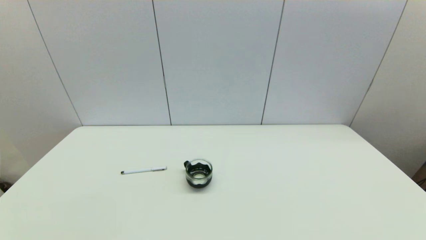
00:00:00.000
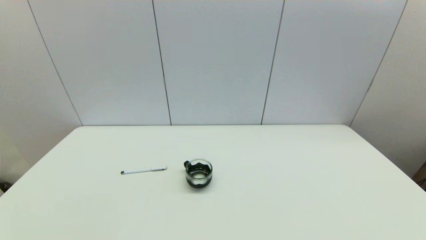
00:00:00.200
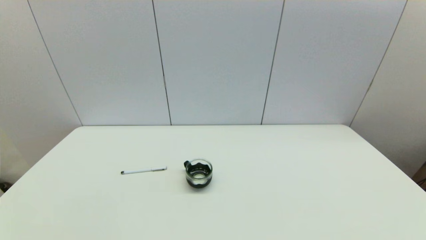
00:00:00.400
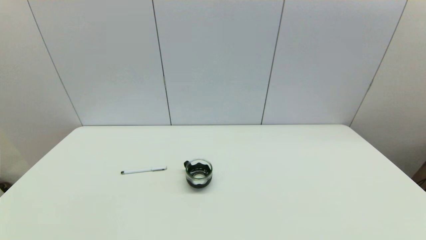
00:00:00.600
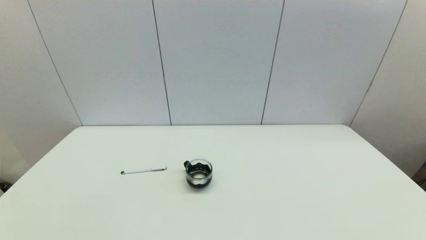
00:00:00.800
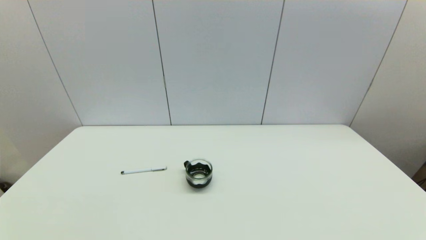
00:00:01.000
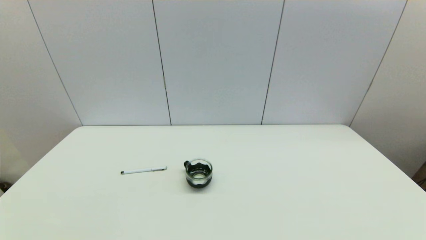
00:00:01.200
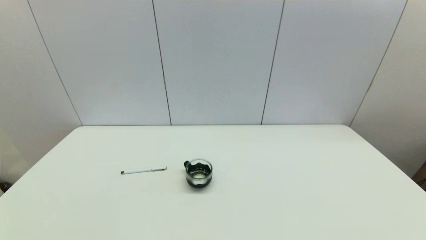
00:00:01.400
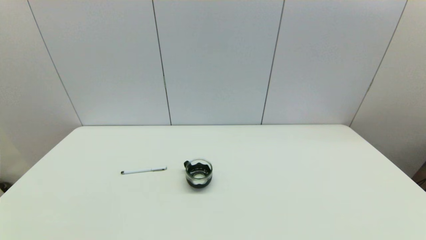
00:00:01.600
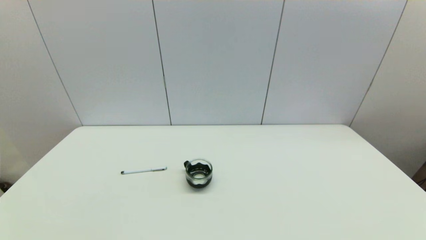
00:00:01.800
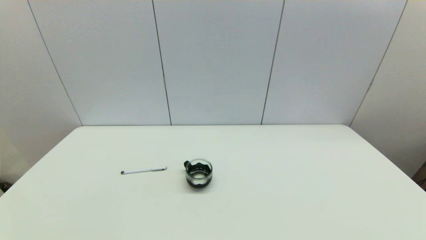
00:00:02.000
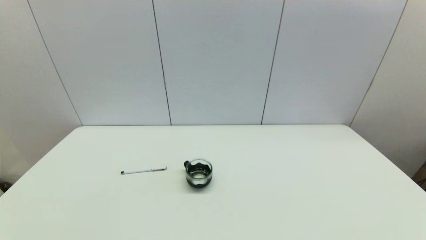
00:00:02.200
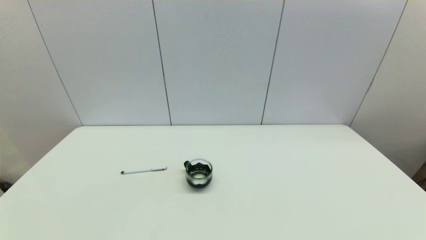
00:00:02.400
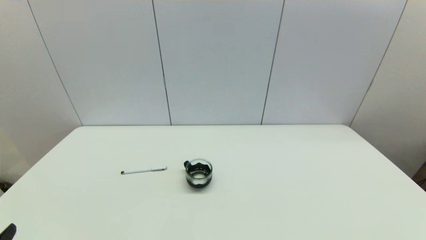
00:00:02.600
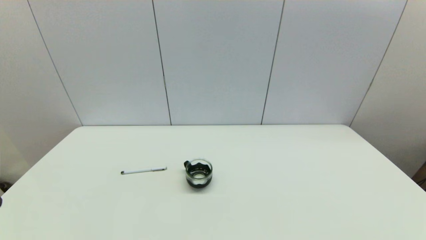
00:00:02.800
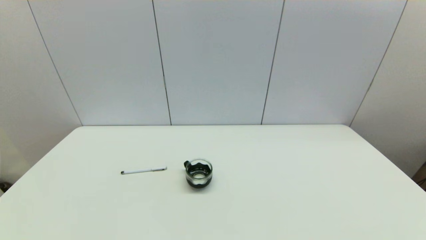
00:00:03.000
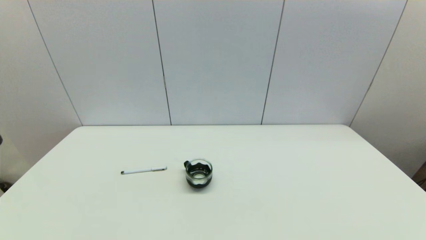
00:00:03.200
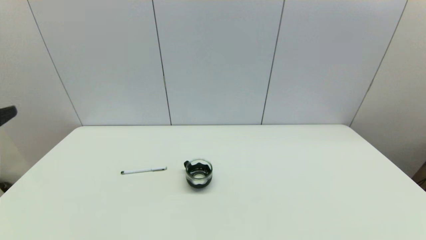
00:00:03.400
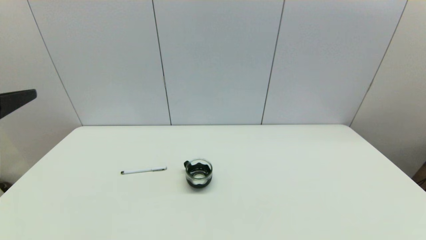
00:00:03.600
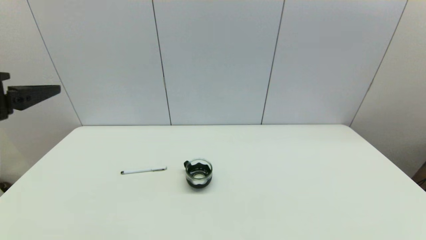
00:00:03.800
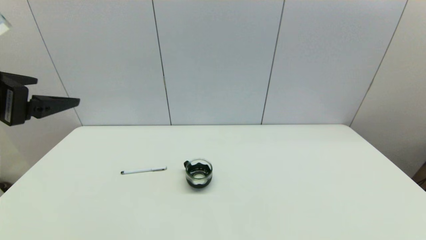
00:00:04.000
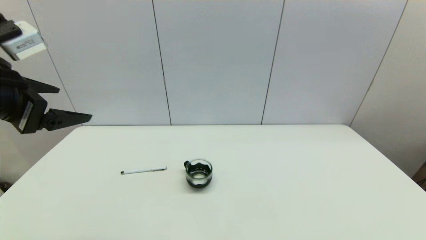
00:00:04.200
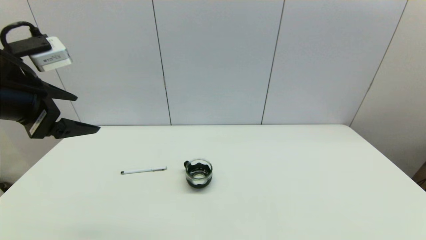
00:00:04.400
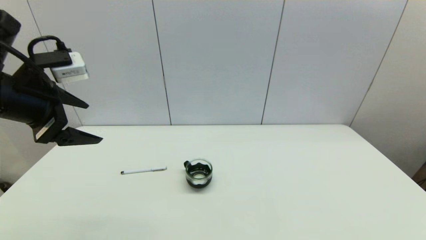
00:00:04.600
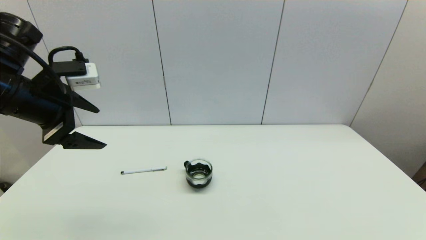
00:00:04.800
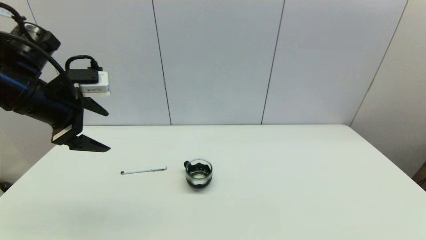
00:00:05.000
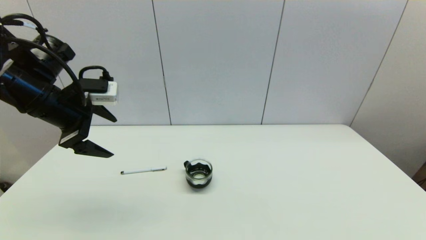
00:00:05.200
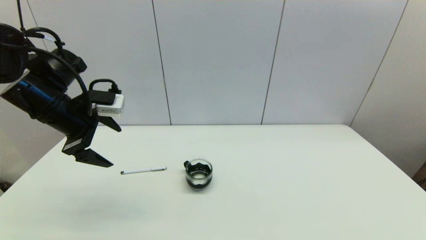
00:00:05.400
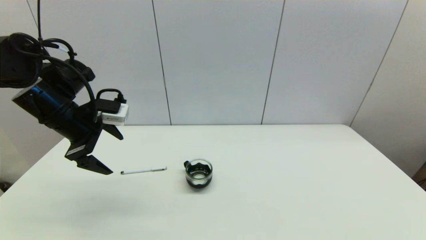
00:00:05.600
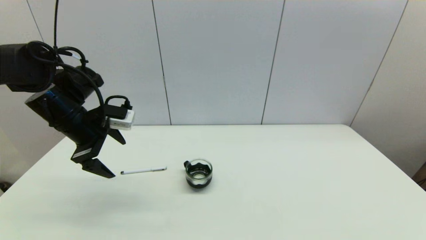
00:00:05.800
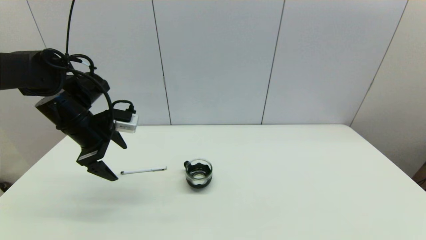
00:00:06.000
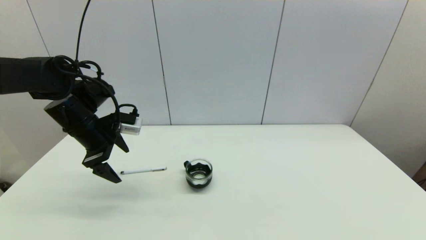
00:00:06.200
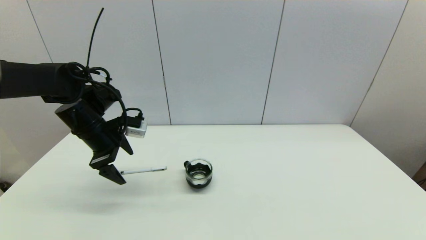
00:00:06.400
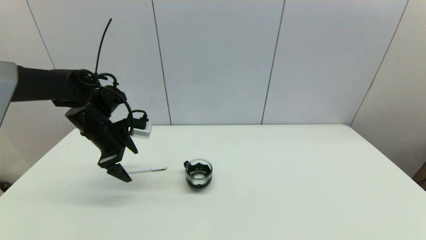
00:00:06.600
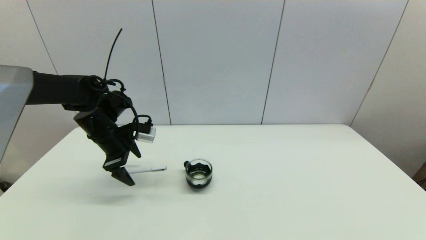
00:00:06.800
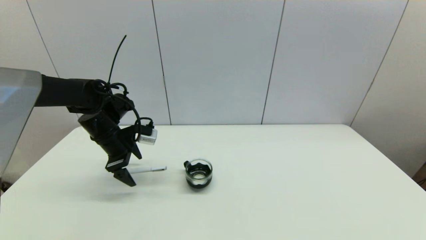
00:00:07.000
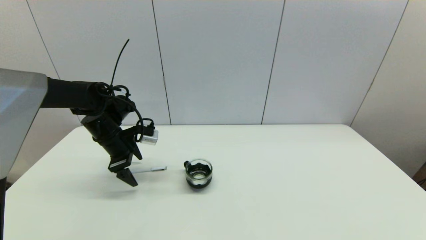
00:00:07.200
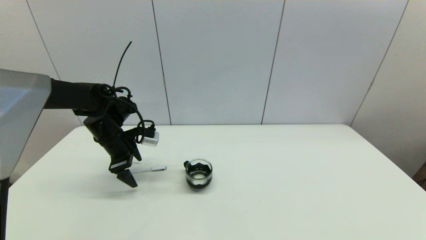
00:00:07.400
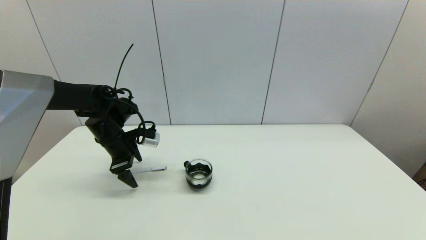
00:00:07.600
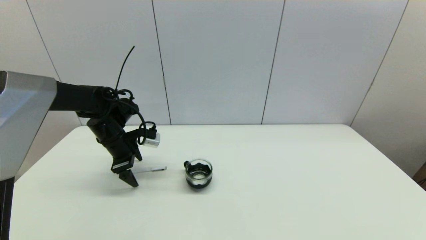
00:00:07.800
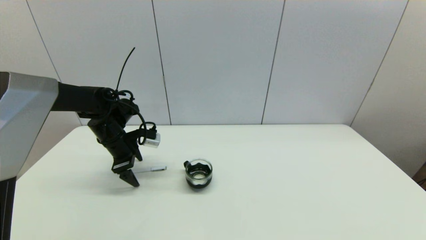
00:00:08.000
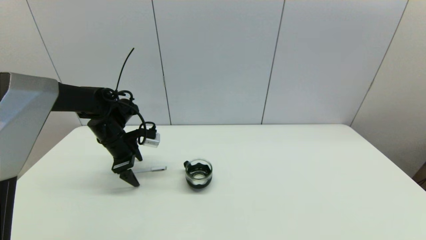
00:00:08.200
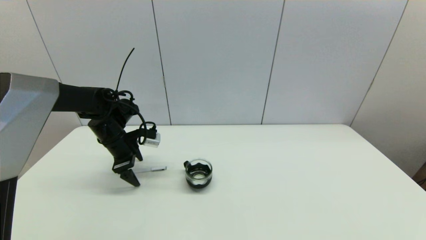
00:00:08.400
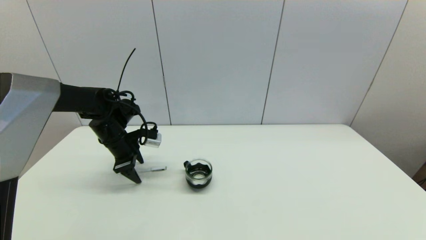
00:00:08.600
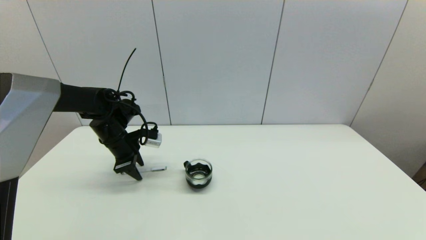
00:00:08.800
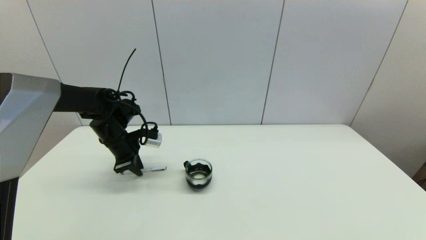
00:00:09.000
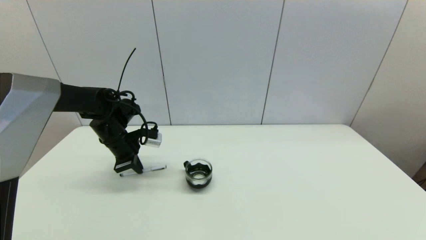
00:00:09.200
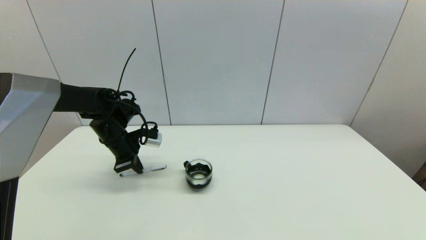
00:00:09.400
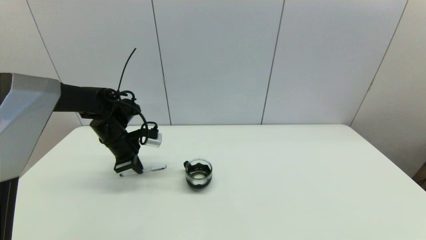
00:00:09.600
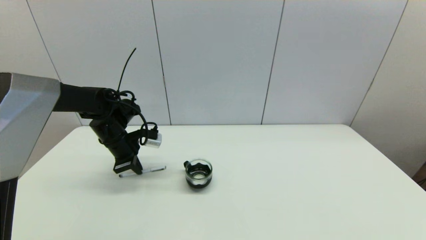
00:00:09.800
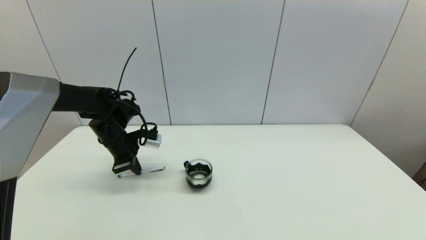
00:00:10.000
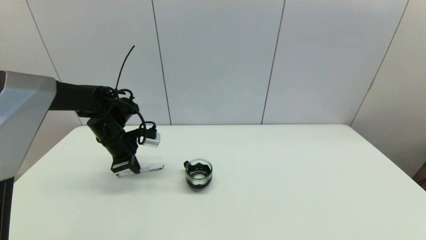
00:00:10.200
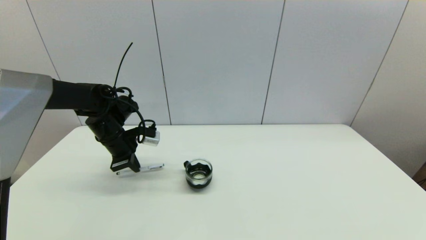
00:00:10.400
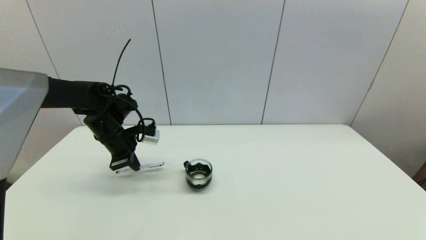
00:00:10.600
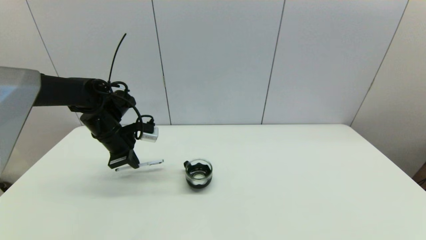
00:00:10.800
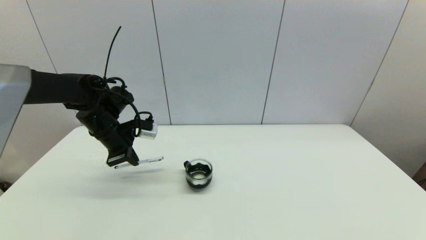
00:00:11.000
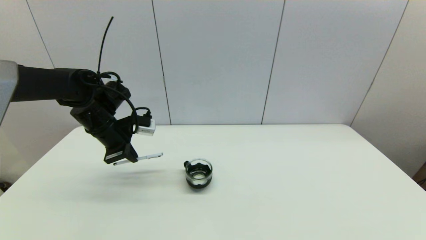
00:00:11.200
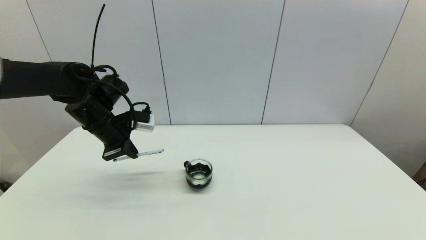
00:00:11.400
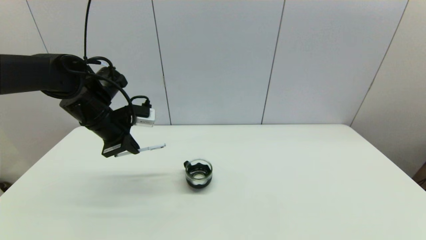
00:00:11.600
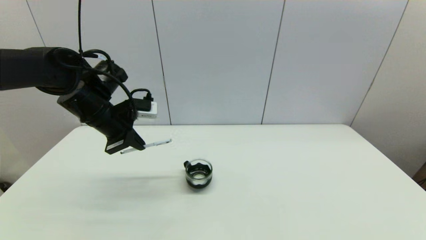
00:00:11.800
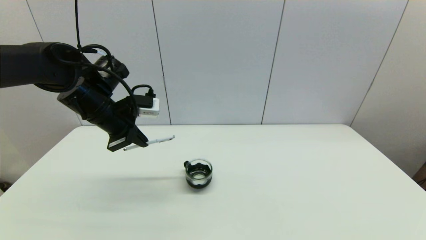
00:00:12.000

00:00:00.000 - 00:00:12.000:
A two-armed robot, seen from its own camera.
Task of the whole recording: put the pen in the designated position.
Step, 00:00:02.600 - 00:00:09.400: Grasp the sign pen with left gripper.
00:00:00.000 - 00:00:01.600: The two grippers keep their place.
00:00:03.000 - 00:00:04.400: The left gripper goes some 20 cm forward and upward.
00:00:04.400 - 00:00:06.000: The left gripper shifts about 15 cm forward and downward.
00:00:06.000 - 00:00:07.600: The left gripper is displaced downward and forward by approximately 10 cm.
00:00:07.600 - 00:00:09.000: The left gripper closes up.
00:00:09.000 - 00:00:10.400: The grippers stay close to where they were, moving slightly.
00:00:10.400 - 00:00:12.000: The left gripper travels upward by roughly 10 cm.

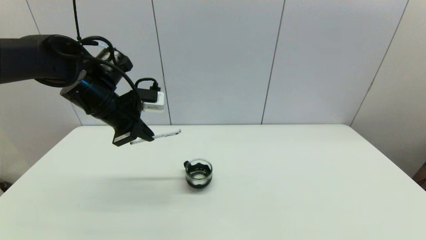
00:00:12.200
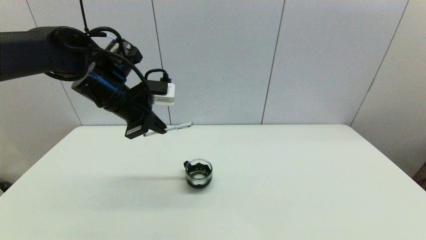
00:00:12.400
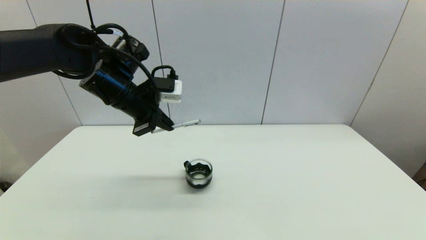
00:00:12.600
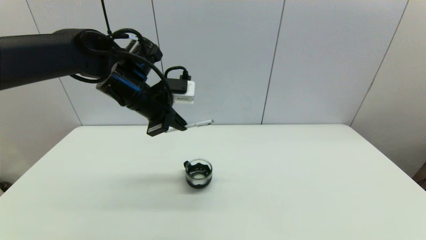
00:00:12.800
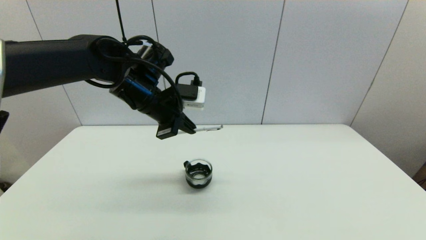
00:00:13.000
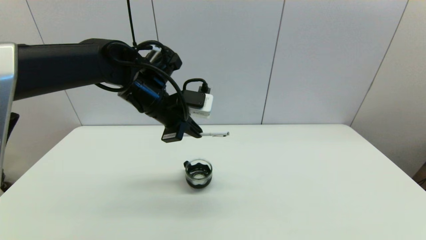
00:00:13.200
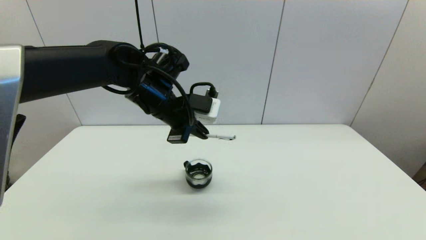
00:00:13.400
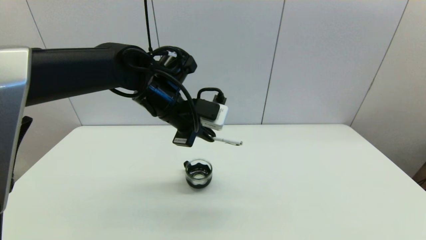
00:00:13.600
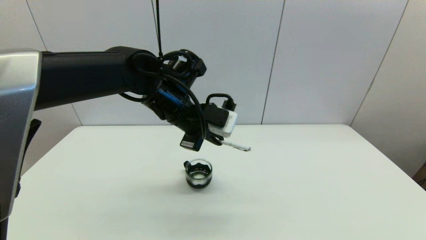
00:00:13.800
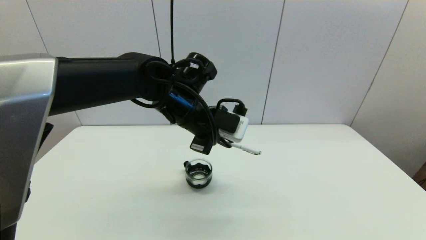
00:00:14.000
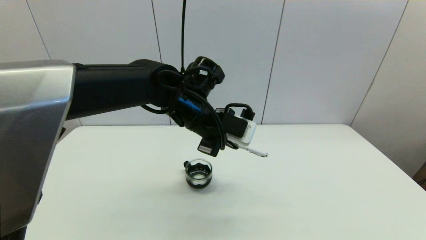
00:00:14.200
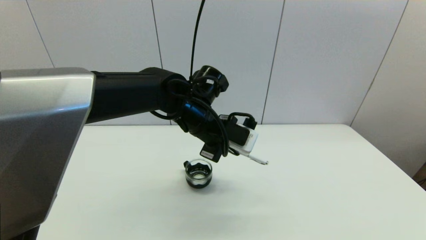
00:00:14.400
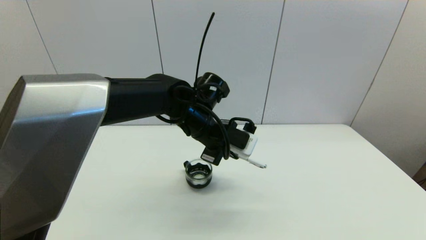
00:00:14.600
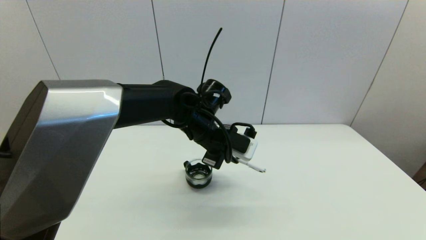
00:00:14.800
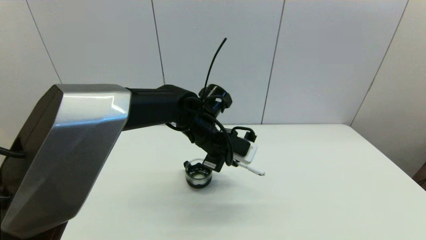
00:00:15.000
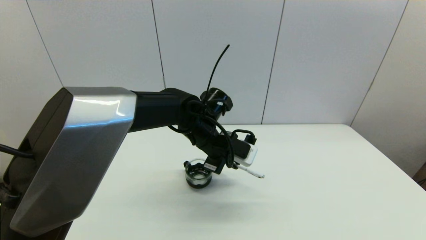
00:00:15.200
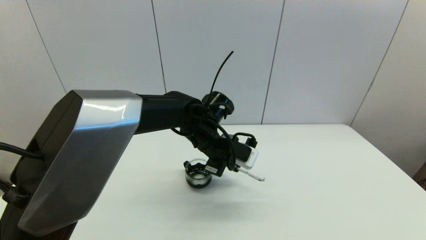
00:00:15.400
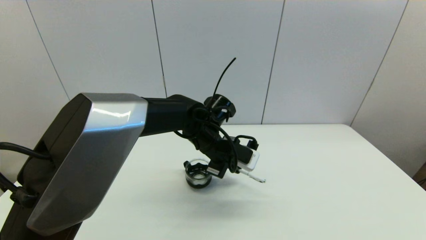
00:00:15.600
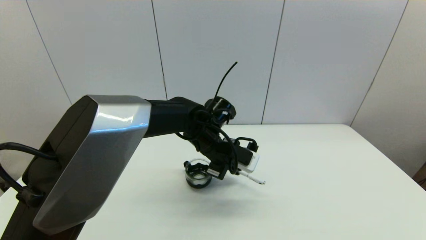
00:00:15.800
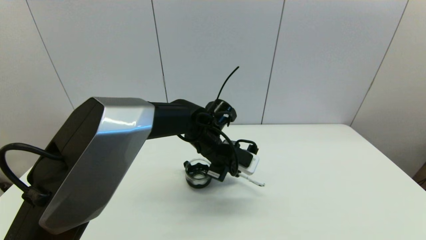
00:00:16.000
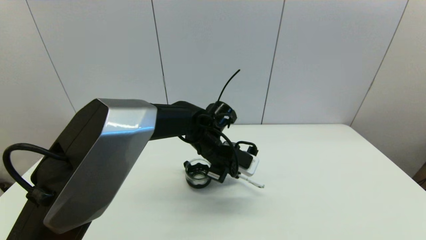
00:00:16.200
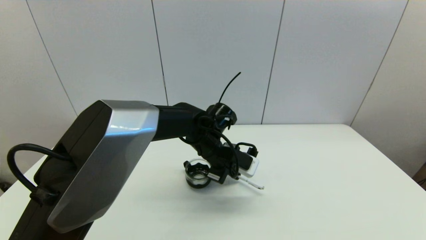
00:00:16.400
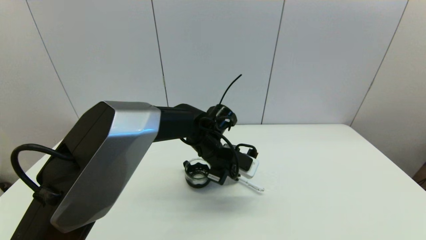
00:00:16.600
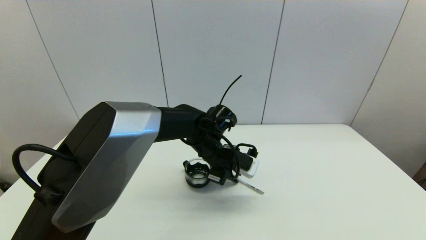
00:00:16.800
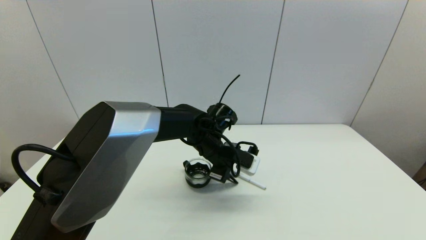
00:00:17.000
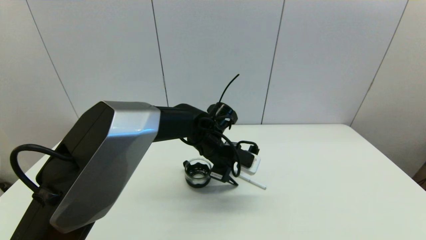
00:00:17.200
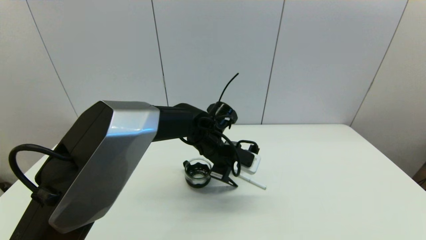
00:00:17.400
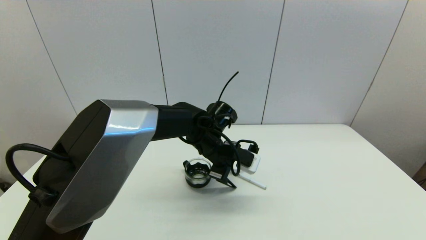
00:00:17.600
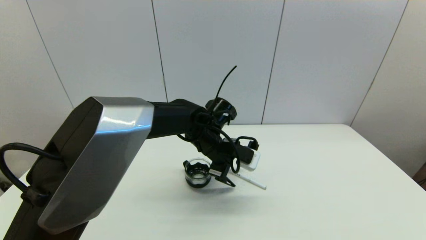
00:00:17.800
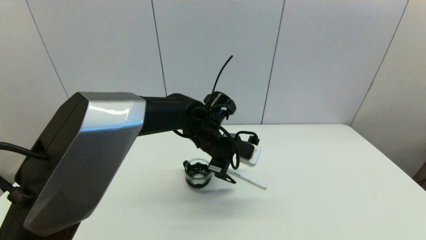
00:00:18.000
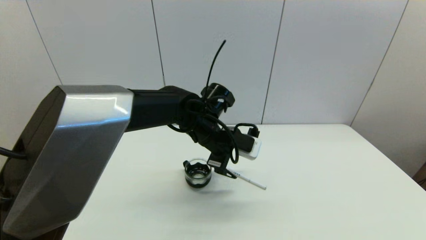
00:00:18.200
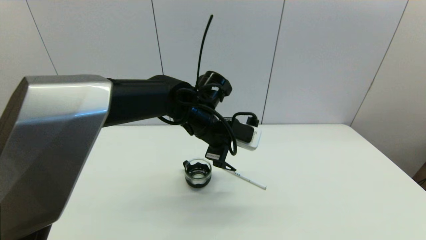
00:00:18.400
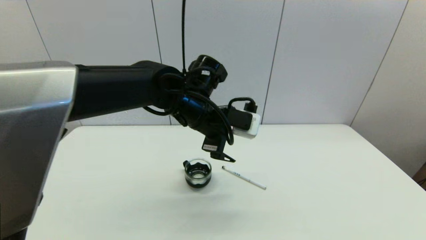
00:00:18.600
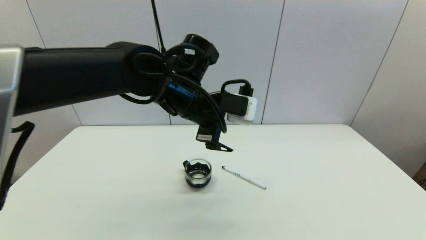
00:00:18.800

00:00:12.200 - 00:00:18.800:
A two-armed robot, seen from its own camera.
Task of the whole recording: put the pen in the designated position.
Step, 00:00:12.200 - 00:00:17.600: Place the sign pen on the table with left gripper.
00:00:12.200 - 00:00:13.800: The left gripper goes about 15 cm to the right.
00:00:13.800 - 00:00:15.400: The left gripper travels downward and to the right by about 10 cm.
00:00:15.400 - 00:00:17.200: The left gripper opens up.
00:00:17.200 - 00:00:18.800: The left gripper travels upward by approximately 15 cm, and opens.
